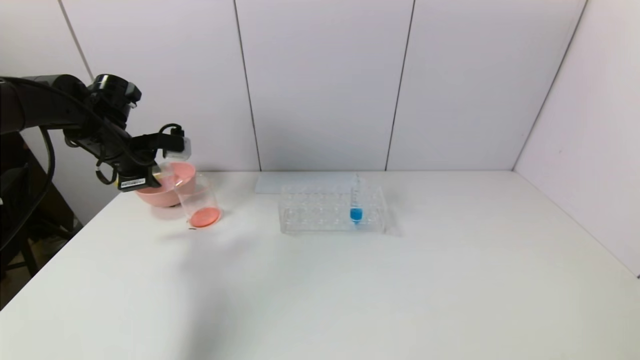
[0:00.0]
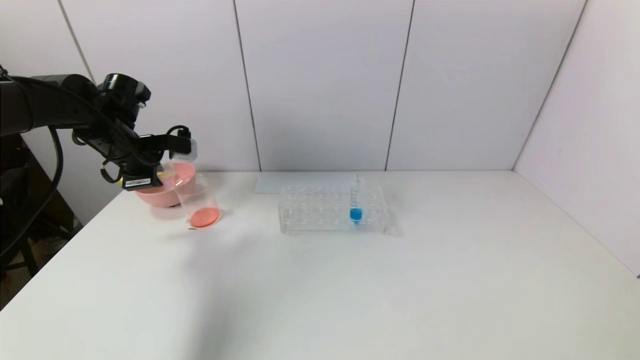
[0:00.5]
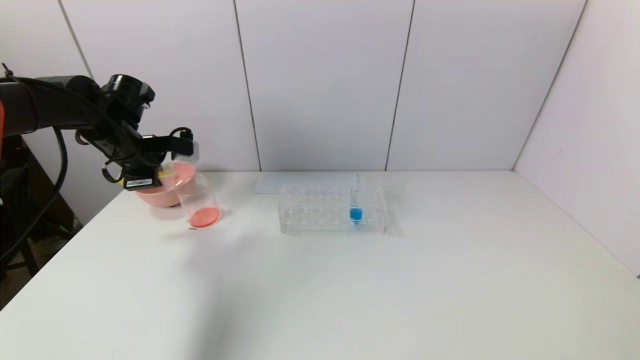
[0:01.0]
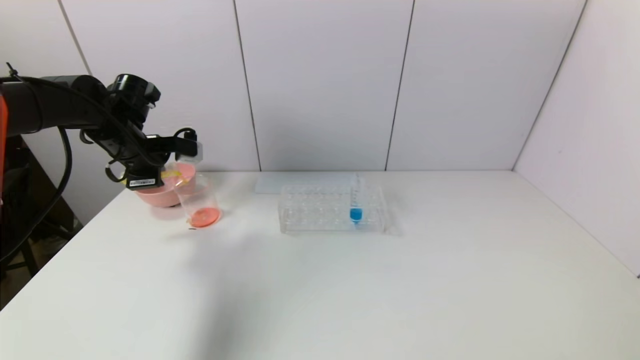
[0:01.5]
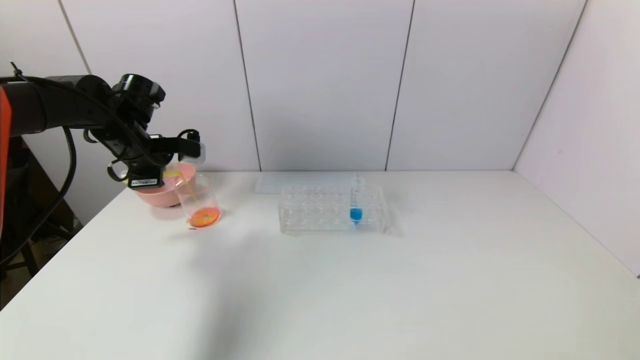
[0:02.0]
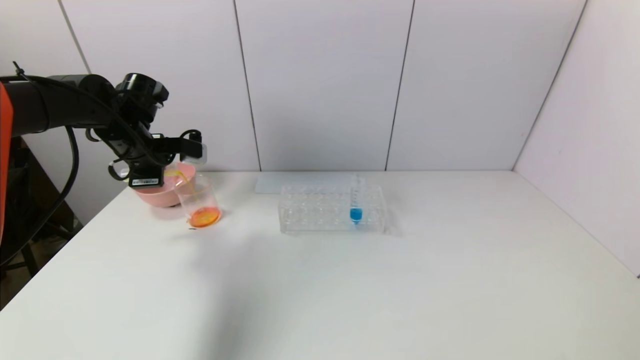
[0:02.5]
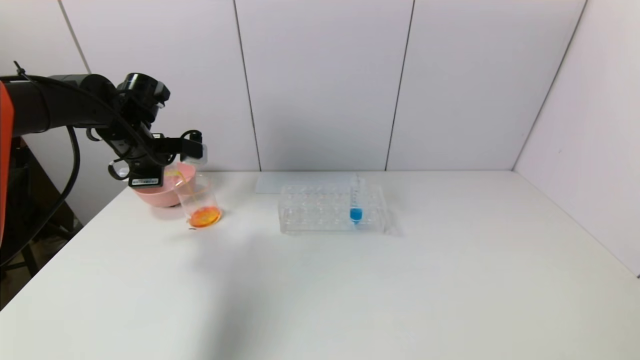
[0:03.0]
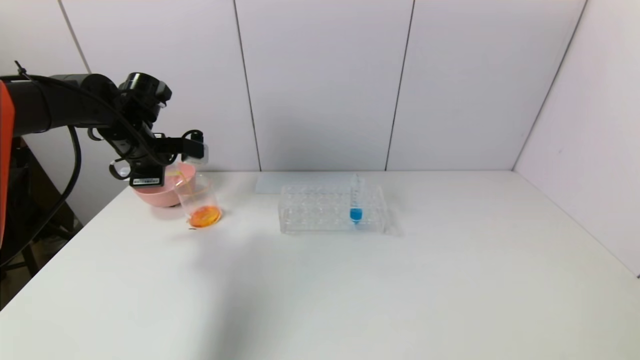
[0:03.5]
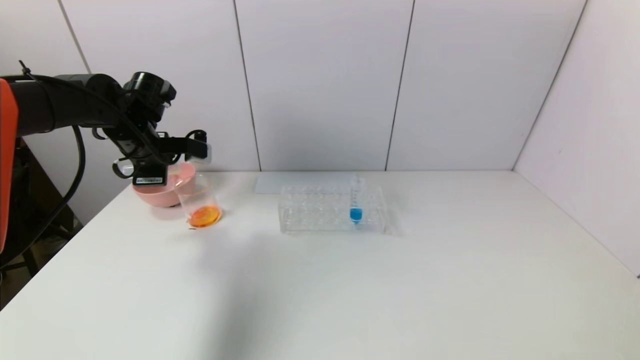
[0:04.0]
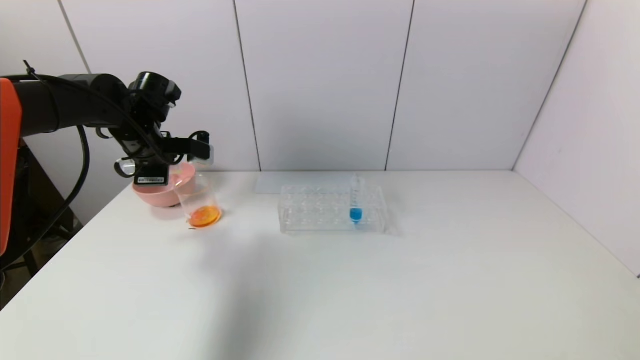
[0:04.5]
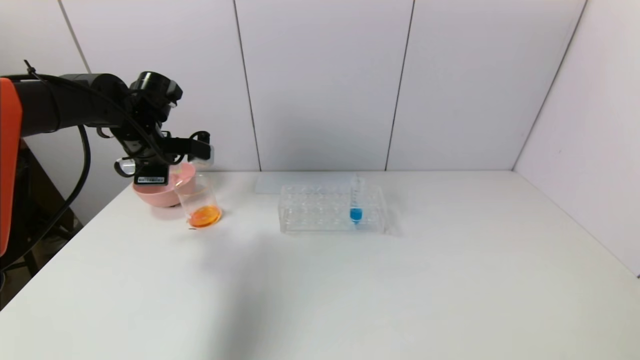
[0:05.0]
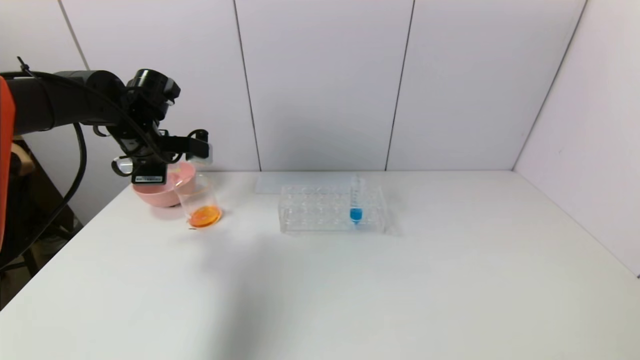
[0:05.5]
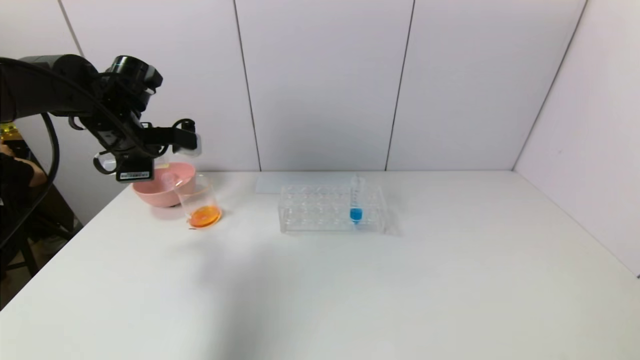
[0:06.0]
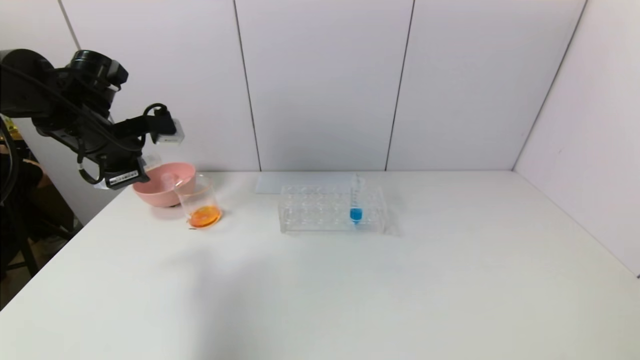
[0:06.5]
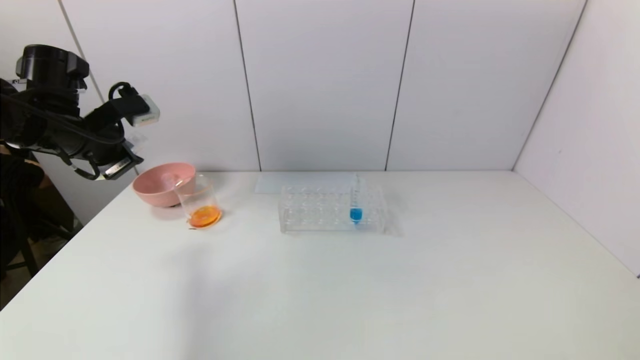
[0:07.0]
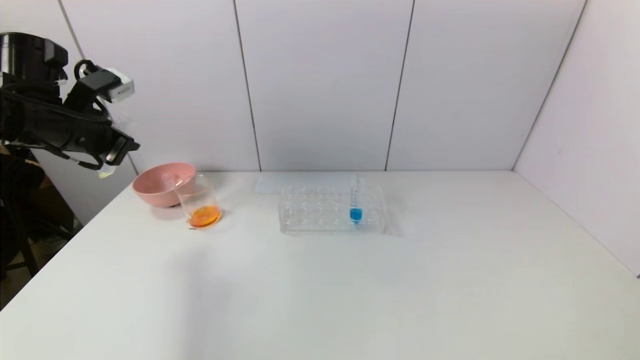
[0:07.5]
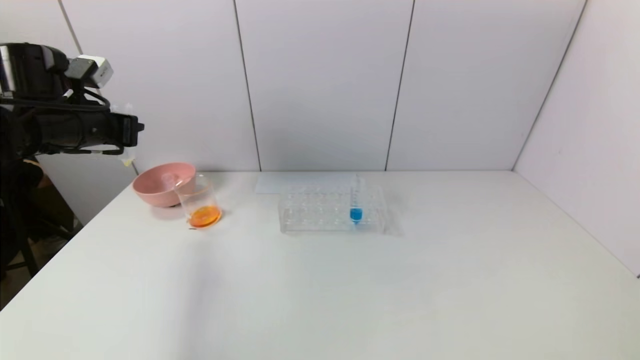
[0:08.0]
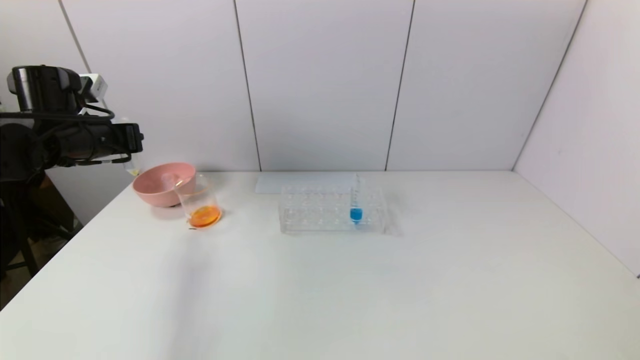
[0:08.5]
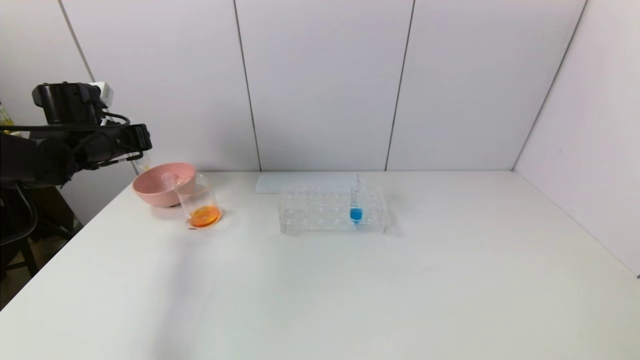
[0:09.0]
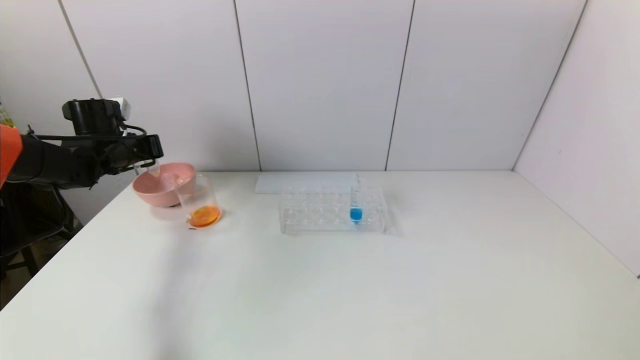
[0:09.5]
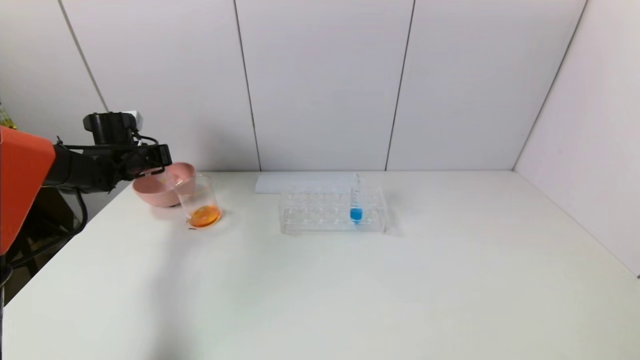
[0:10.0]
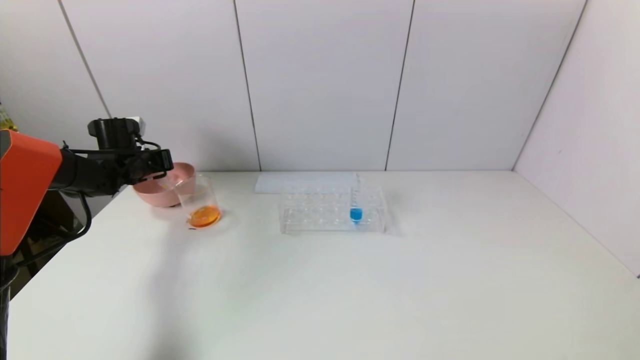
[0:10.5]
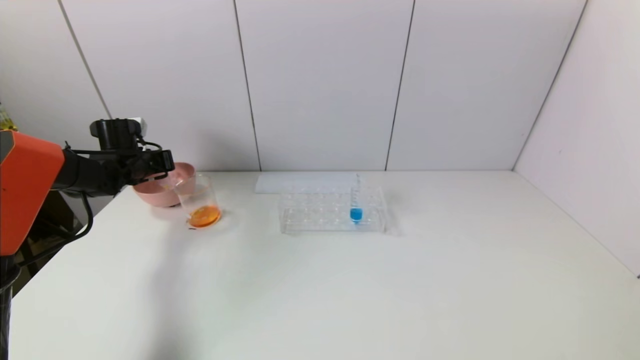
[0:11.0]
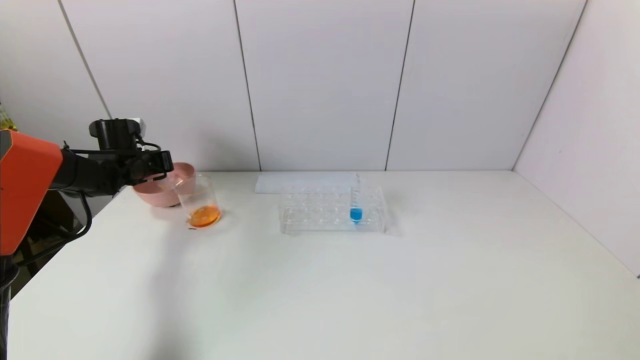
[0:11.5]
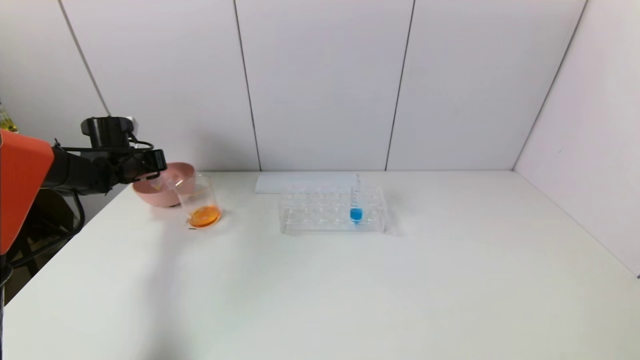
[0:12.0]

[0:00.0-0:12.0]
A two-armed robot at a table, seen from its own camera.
Task of the whole recording: pick up the test tube with yellow pigment and the test tube with red pigment by grippers and pour them into the beaker.
Step, 0:00.0 to 0:04.5: Pour the yellow reagent into the graduated cylinder with the left gripper.
0:00.0 to 0:06.0: The grippers move only a little.
0:06.0 to 0:08.0: The left gripper shifts some 5 cm to the left.
0:08.0 to 0:10.0: The left gripper travels forward and downward by roughly 15 cm.
0:10.0 to 0:12.0: There are only small adjustments of the grippers.

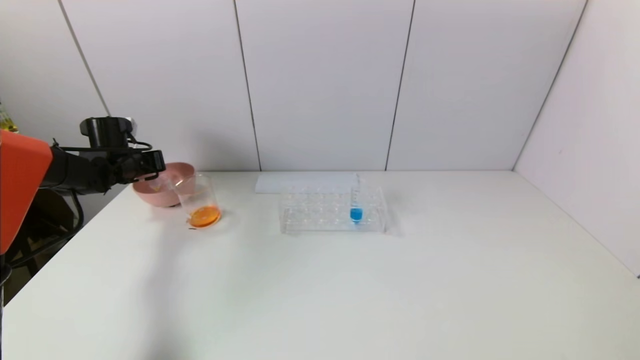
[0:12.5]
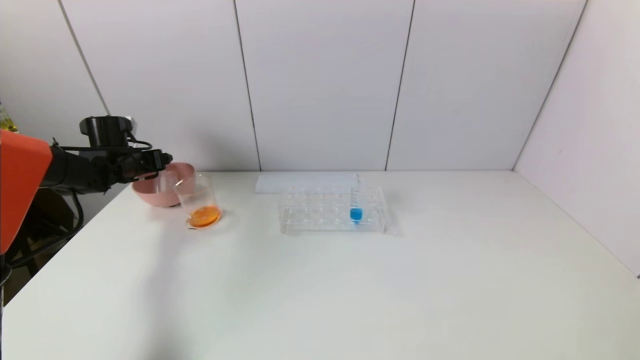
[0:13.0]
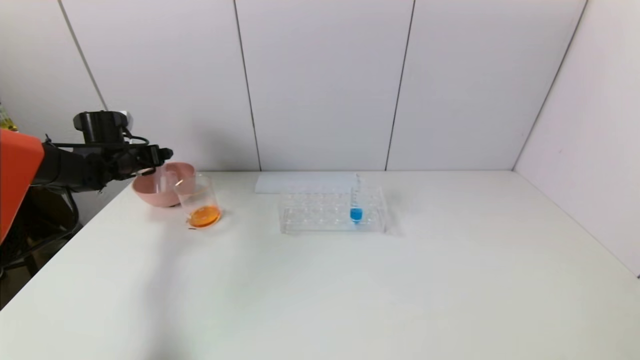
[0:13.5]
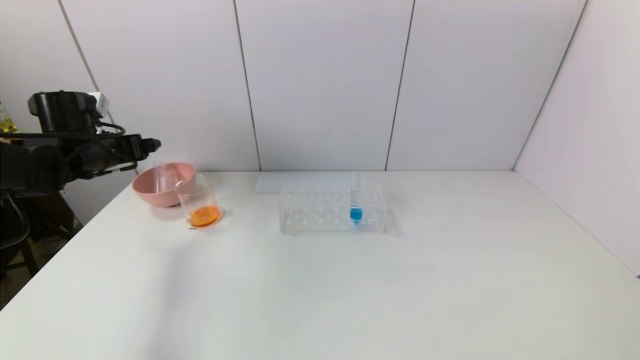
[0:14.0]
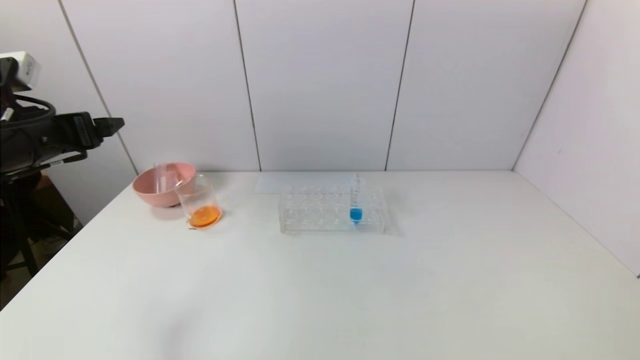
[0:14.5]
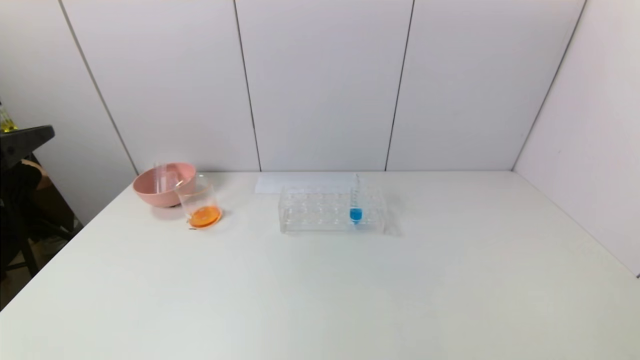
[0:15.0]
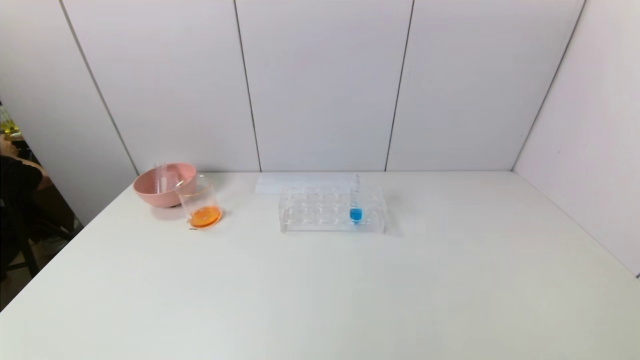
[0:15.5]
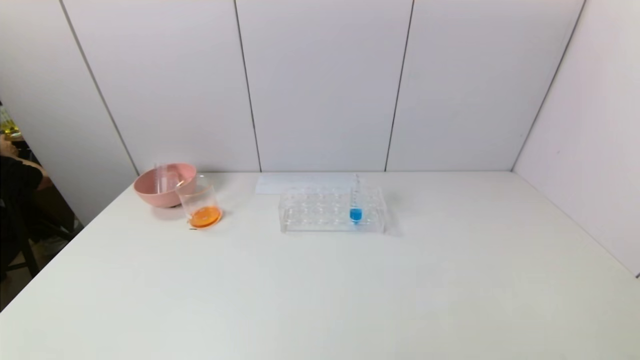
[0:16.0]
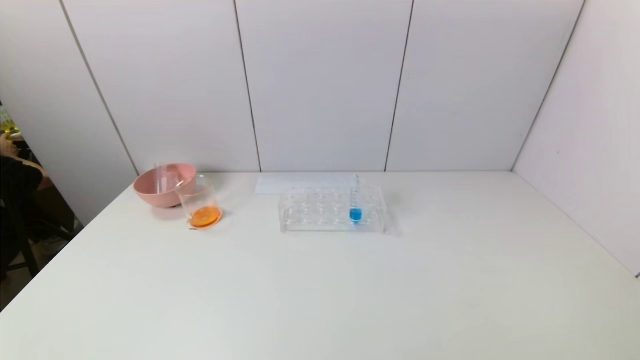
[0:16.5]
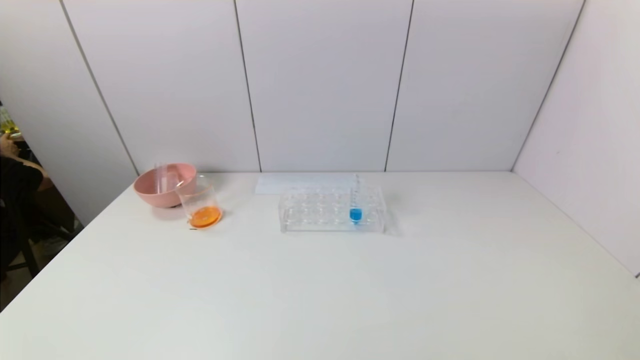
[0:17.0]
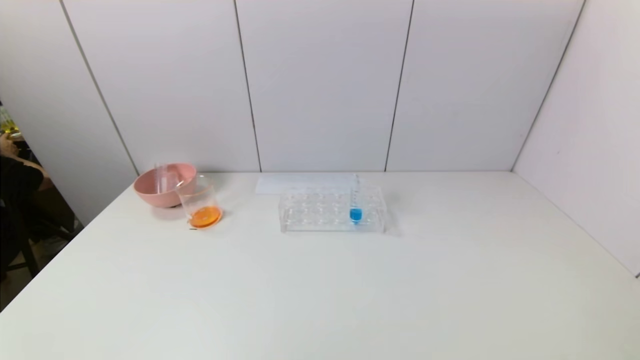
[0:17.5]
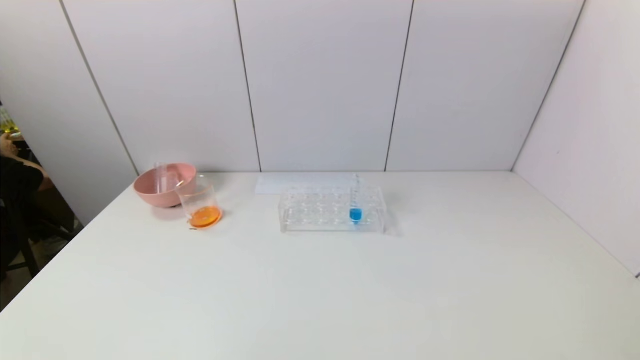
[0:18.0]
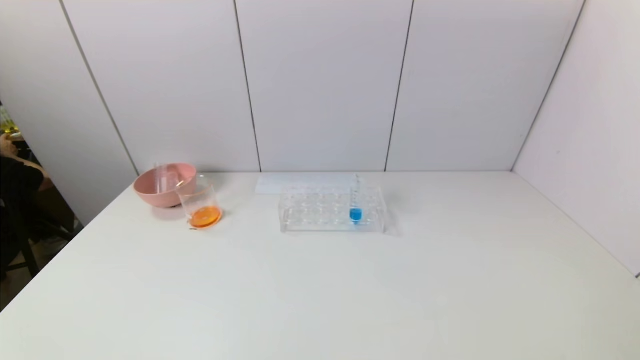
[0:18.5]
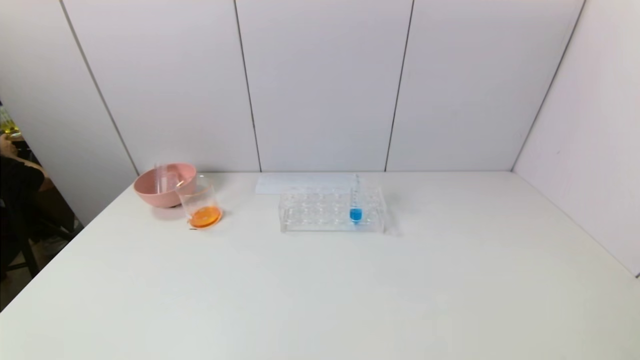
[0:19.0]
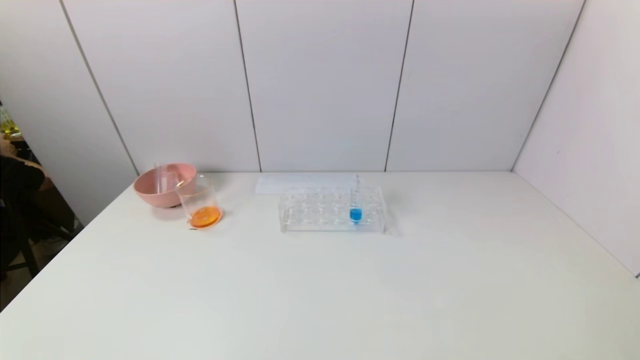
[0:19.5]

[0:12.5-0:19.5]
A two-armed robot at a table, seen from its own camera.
Task of the whole recording: pick up the test tube with yellow pigment and the test tube with red pigment by grippers and pour them into the beaker.
0:12.5 to 0:14.5: The left gripper shifts about 25 cm backward and upward, and opens its fingers.
0:14.5 to 0:16.0: The left gripper shifts roughly 35 cm backward.
